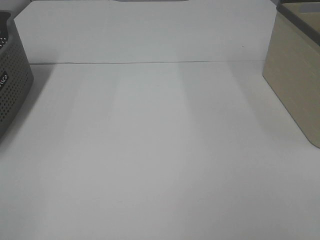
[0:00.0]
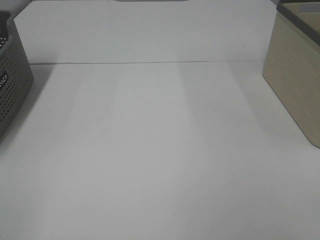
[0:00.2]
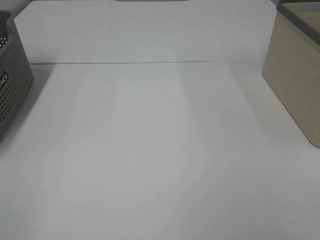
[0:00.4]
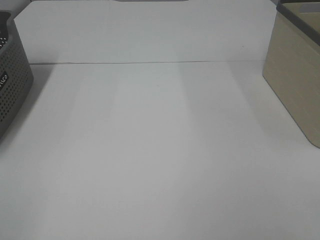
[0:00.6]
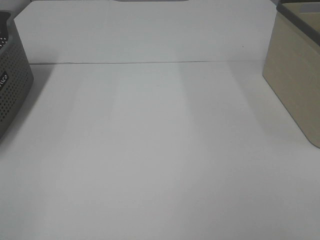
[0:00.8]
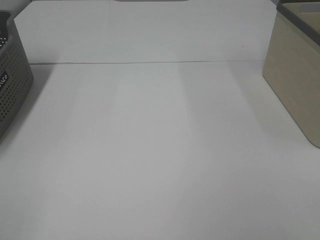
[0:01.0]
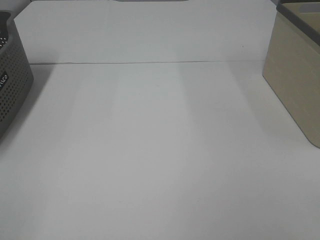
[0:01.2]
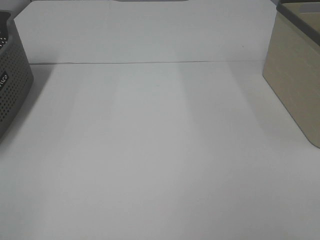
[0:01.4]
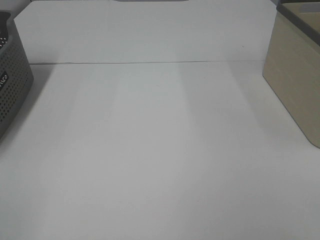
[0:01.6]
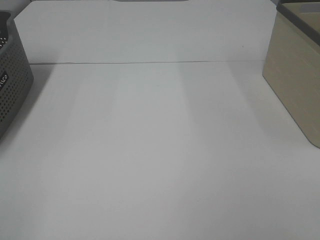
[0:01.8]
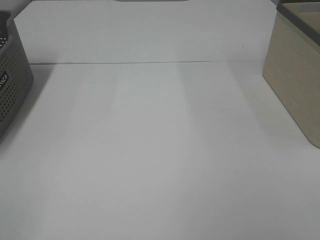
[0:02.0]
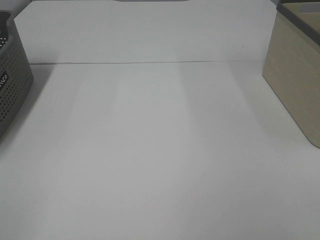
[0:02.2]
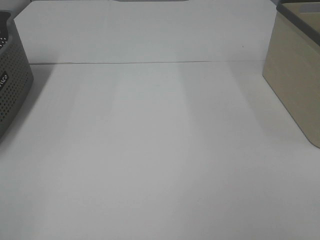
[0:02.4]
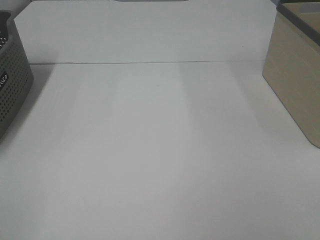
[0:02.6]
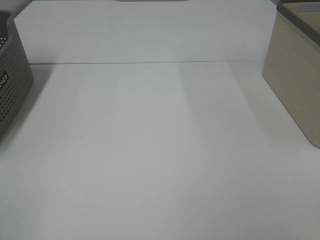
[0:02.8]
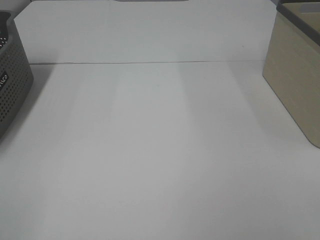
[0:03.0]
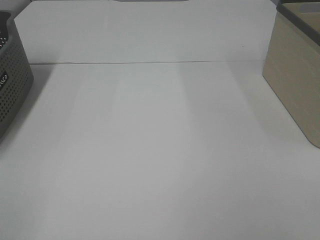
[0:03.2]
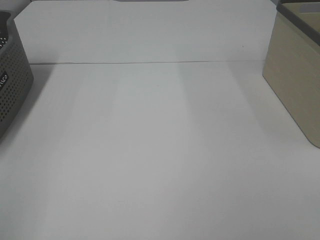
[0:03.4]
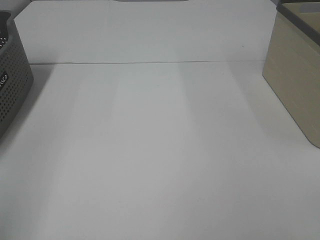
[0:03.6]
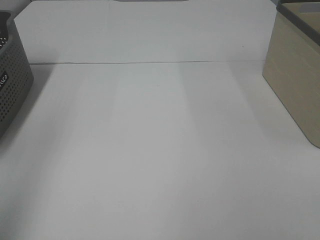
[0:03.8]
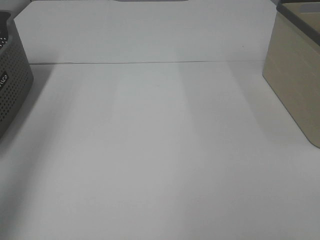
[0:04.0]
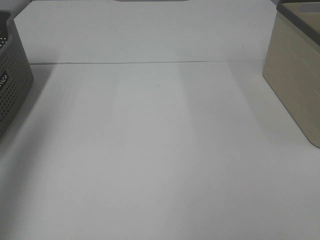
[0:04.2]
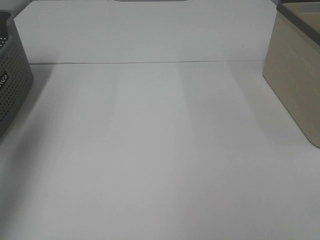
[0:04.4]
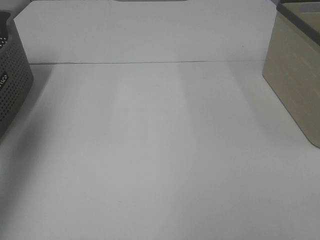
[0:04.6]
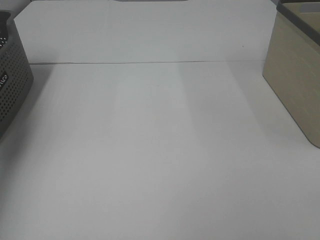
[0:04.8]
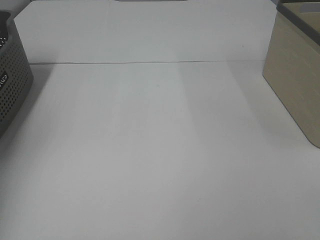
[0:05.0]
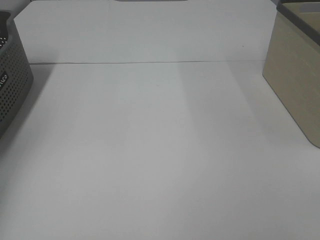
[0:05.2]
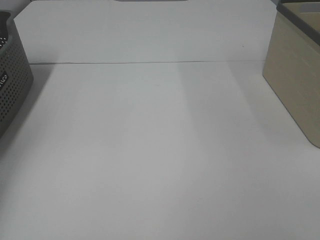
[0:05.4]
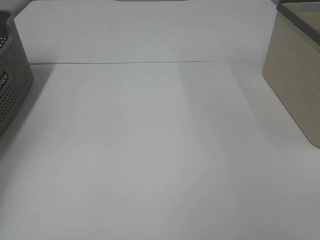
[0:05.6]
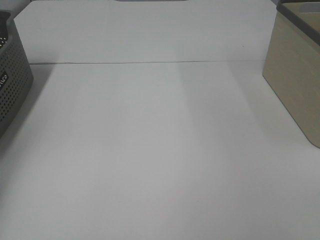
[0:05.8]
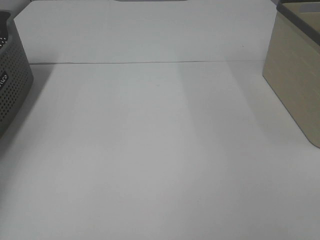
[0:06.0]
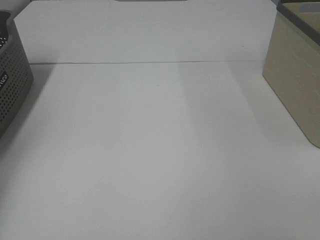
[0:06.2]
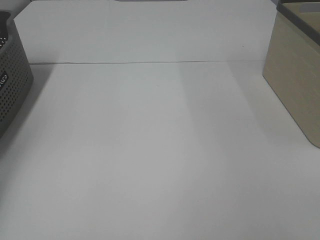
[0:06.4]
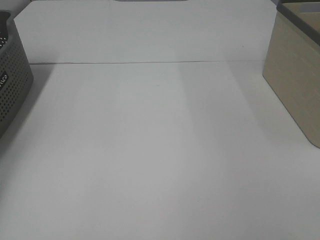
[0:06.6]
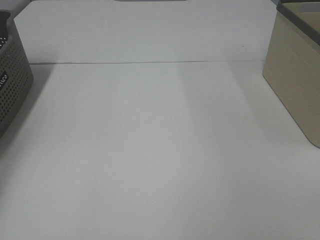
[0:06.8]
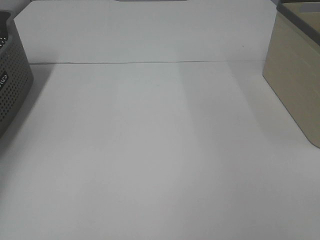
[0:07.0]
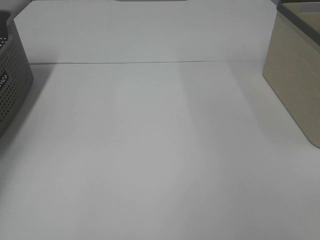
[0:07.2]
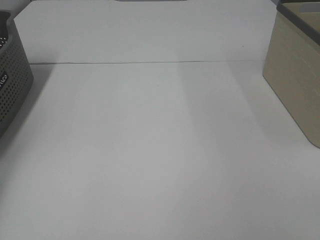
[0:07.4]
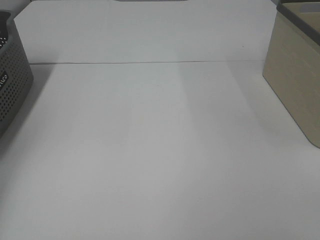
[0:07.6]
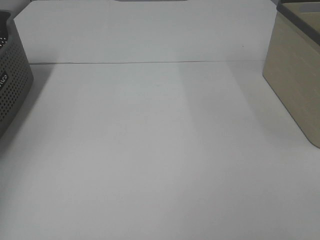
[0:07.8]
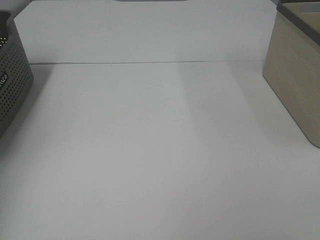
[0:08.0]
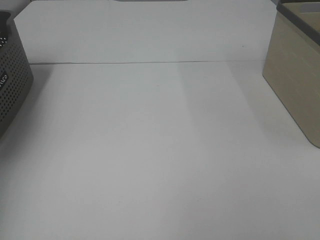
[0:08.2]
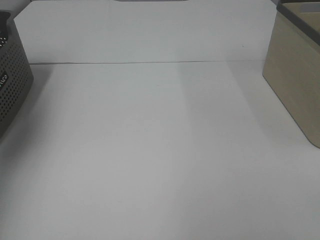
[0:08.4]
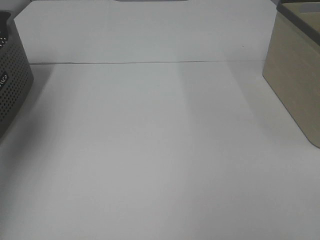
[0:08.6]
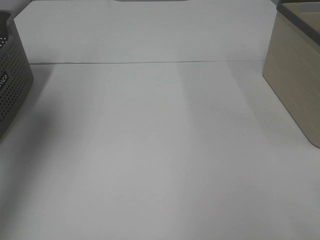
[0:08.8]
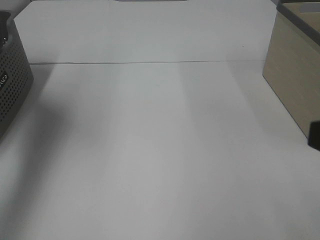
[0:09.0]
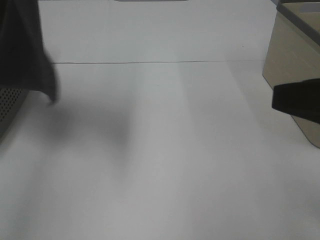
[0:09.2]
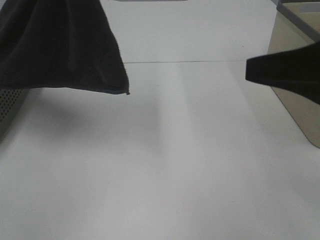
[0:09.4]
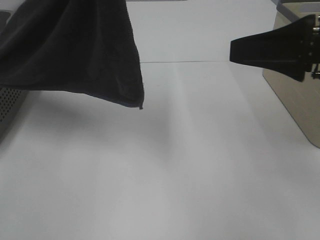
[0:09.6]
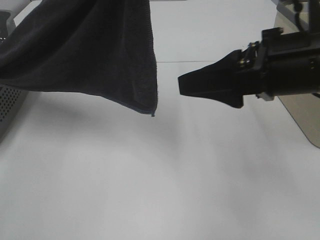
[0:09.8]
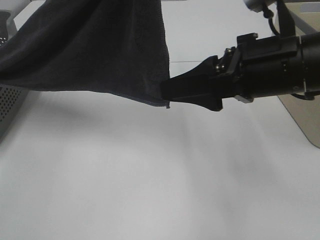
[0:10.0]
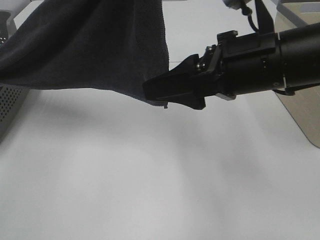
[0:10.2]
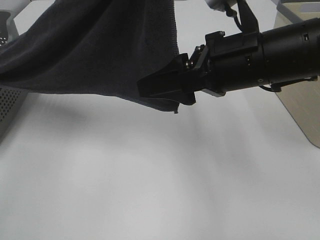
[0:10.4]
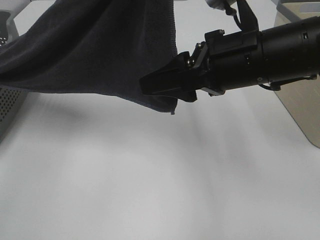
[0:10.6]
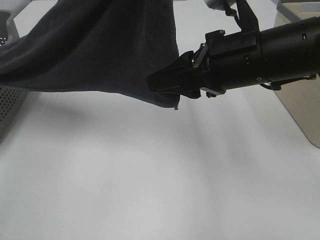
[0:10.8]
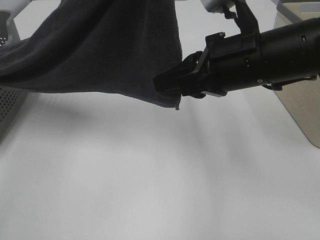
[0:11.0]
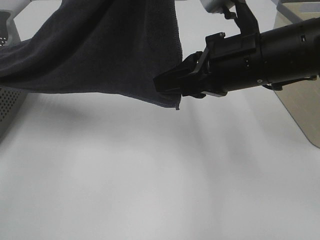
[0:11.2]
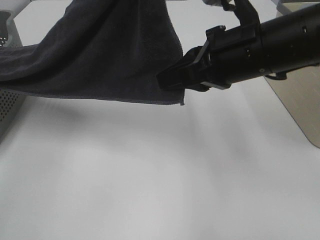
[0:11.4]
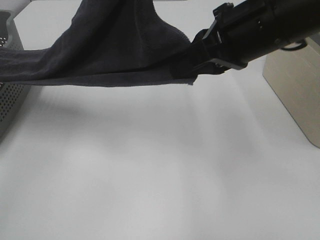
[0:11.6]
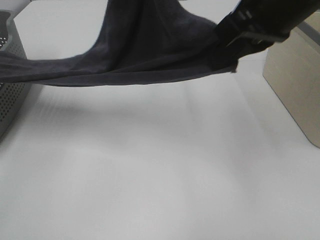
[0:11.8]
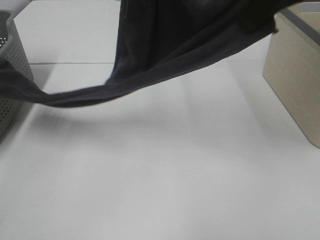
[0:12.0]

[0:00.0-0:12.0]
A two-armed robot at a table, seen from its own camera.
Task of the whole recording: Remove the towel and place it.
Step, 0:08.0 to 0:10.6: Right hand: grab a corner of the grey towel and straighten it.
0:00.0 to 0:03.0: The two grippers keep their place.
0:03.0 to 0:04.4: The left gripper travels forward by roughly 30 cm.
0:04.4 to 0:06.0: The left gripper travels downward and forward by about 25 cm.
0:07.6 to 0:09.0: The left gripper is displaced upward, to the right and backward by approximately 30 cm.
0:09.0 to 0:10.4: The right gripper heads forward and to the left, covering roughly 20 cm, while the left gripper goes about 15 cm to the right.
0:10.4 to 0:12.0: The right gripper is displaced upward by approximately 15 cm, and closes.

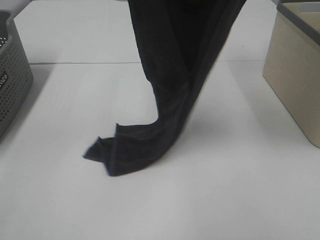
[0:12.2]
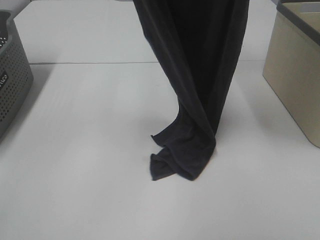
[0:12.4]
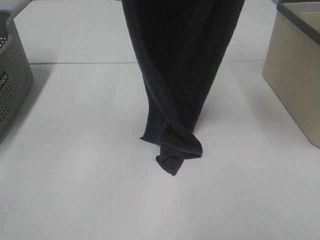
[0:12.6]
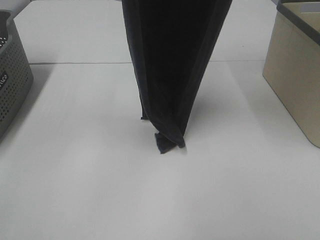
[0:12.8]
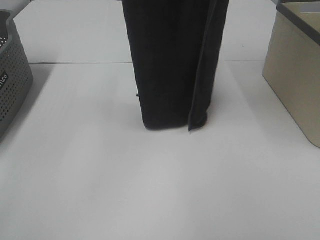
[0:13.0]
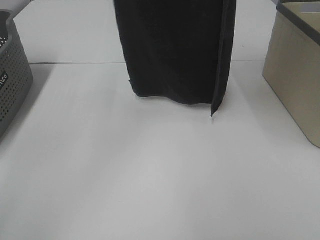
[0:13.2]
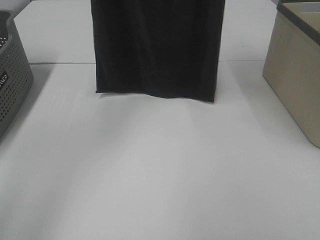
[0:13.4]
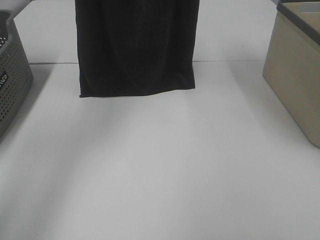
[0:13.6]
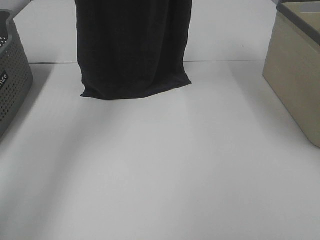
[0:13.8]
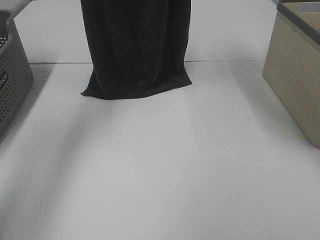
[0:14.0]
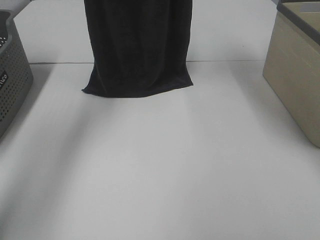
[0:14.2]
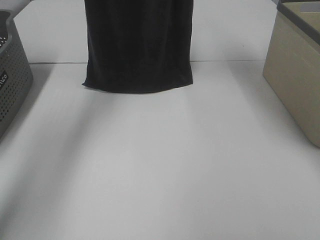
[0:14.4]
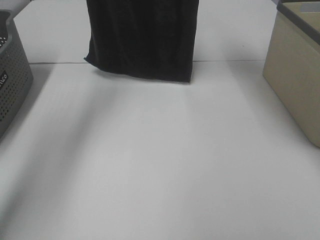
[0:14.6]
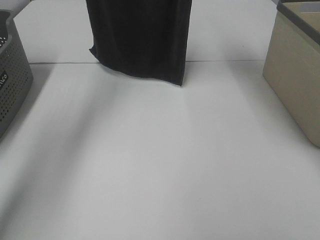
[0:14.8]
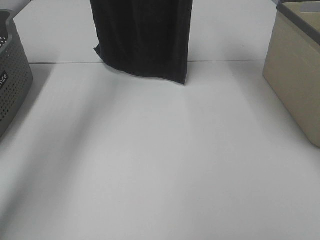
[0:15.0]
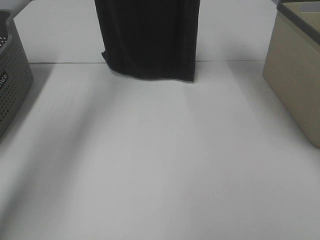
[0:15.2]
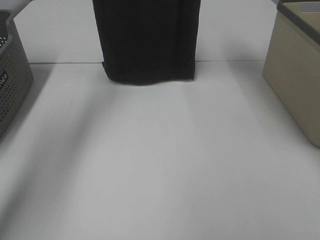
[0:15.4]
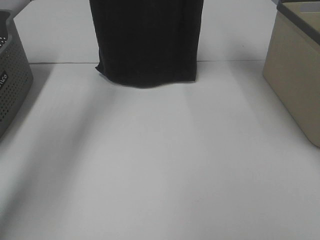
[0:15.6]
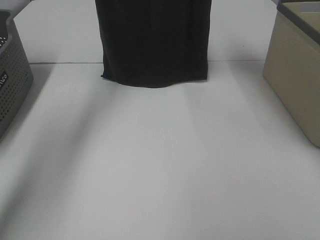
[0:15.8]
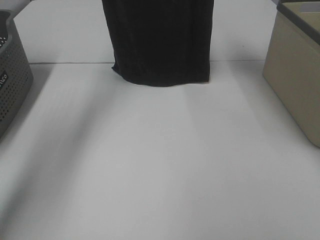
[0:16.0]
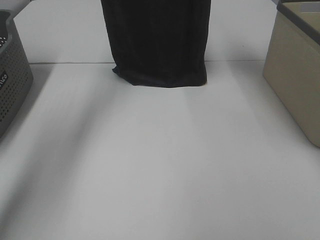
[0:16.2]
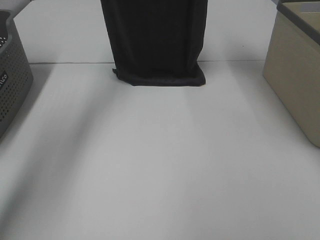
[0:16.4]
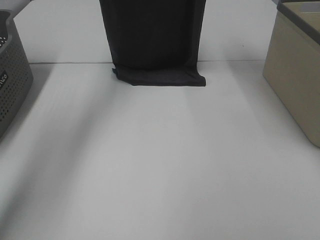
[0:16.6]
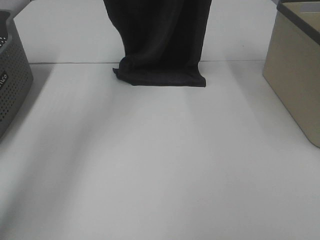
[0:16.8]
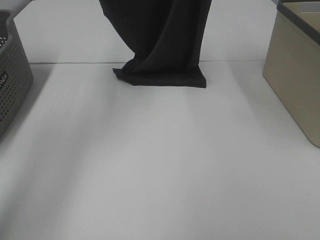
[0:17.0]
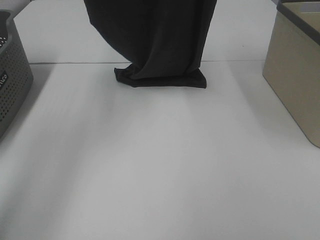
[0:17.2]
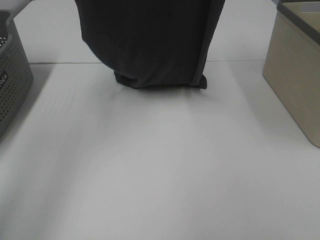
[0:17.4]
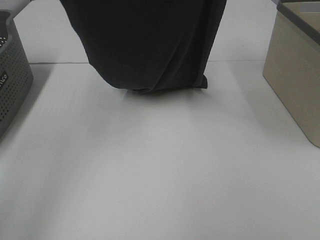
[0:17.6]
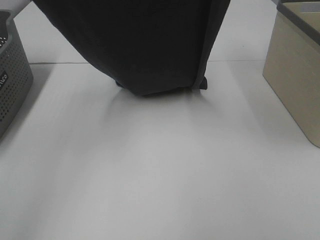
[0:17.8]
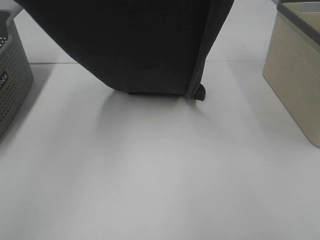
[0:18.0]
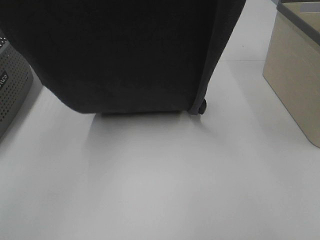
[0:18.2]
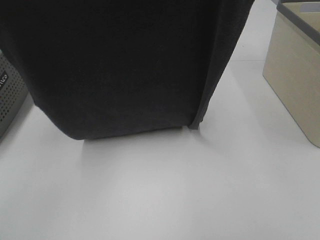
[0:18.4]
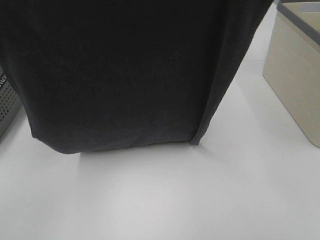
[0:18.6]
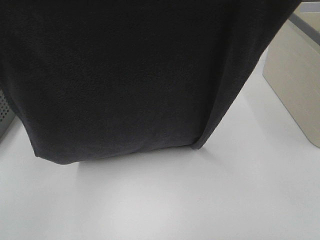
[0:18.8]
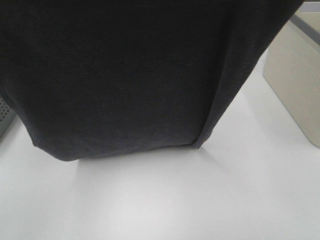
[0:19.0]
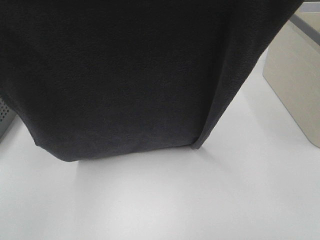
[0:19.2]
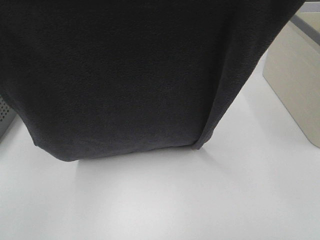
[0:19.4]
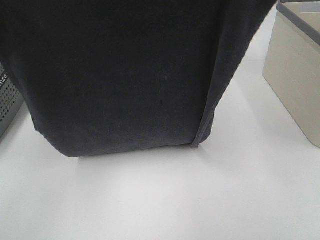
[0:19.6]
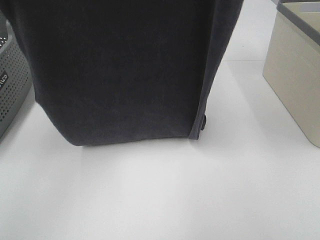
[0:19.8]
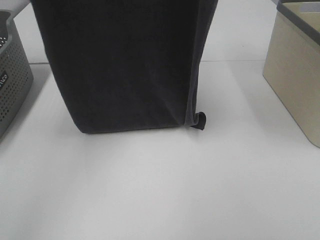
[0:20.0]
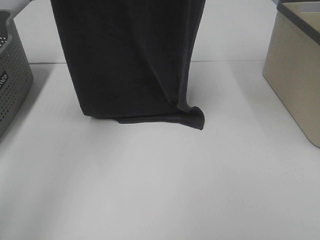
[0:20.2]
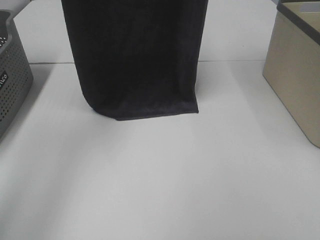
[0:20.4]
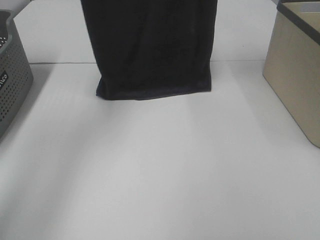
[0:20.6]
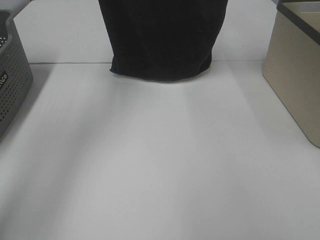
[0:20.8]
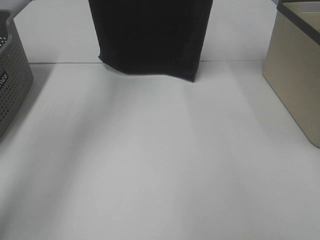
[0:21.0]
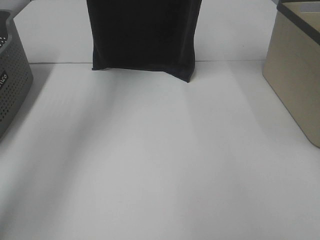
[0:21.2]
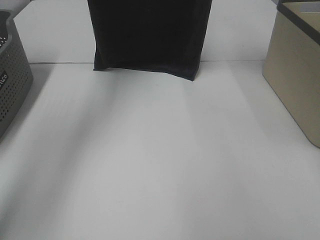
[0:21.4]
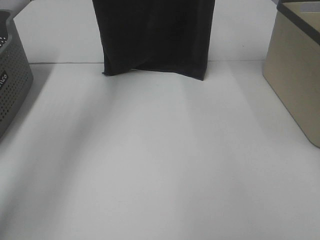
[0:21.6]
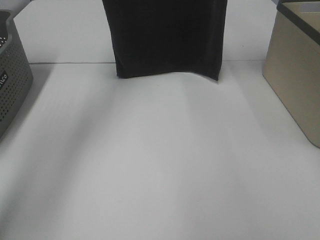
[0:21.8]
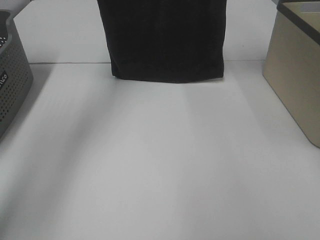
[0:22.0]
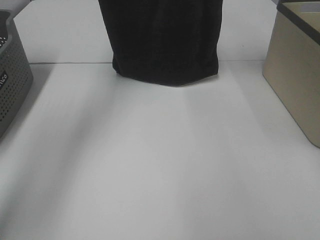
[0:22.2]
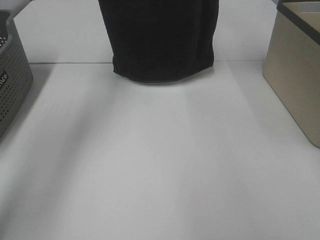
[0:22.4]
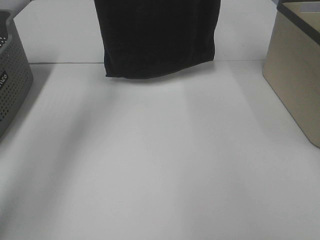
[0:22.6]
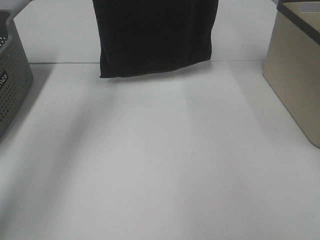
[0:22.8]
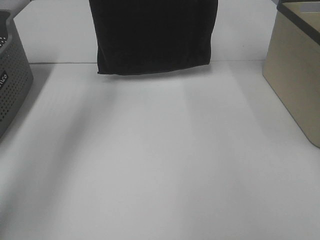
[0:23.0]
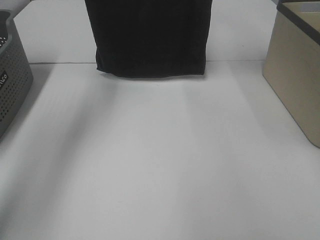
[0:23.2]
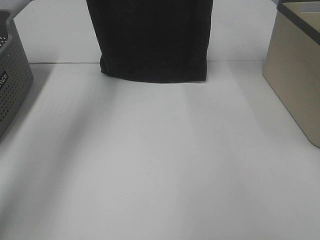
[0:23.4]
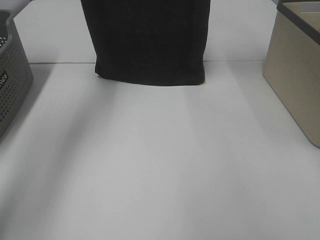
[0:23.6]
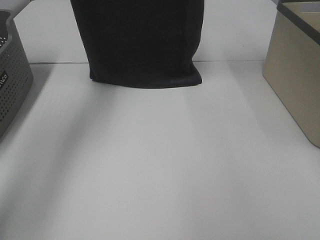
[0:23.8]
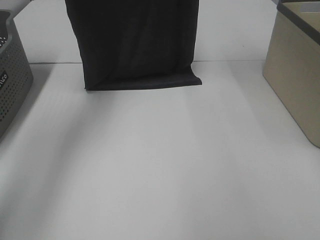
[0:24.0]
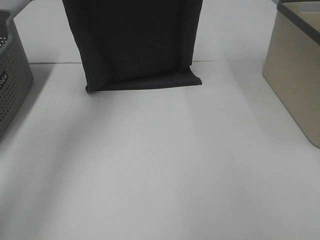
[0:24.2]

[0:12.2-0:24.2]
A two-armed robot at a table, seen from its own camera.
Task of the whole recording: Remove the towel and place it.
Step, 0:12.2 to 0:23.8: Left hand: spread the grey towel flat on the table.
Step, 0:12.2 to 0:23.8: Right hand: spread the grey towel flat on the table.
0:12.2 to 0:13.8: The grippers both shift forward and to the left by roughly 15 cm.
0:13.8 to 0:15.2: The left gripper moves forward, roughly 5 cm.
0:16.6 to 0:18.2: Both grippers move backward, about 25 cm.
0:19.8 to 0:21.2: The two grippers go some 20 cm forward.
0:21.2 to 0:22.6: The grippers make only small movements.
0:22.6 to 0:24.2: The left gripper is displaced backward by roughly 5 cm; the right gripper ends up approximately 5 cm from where it was.
